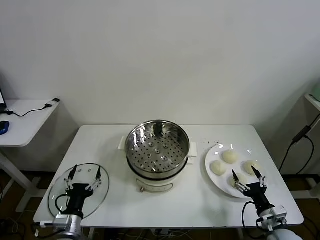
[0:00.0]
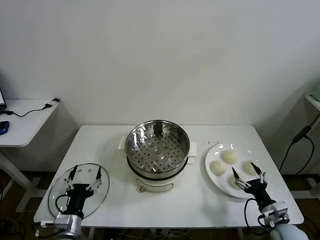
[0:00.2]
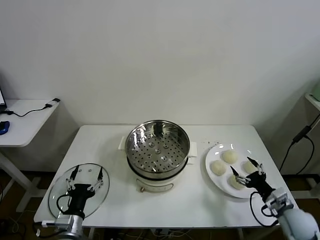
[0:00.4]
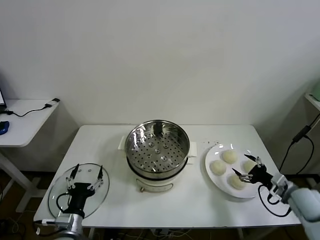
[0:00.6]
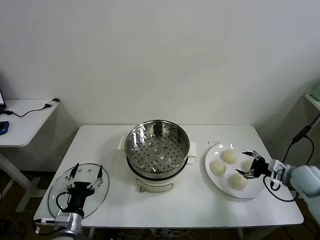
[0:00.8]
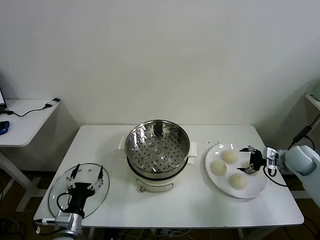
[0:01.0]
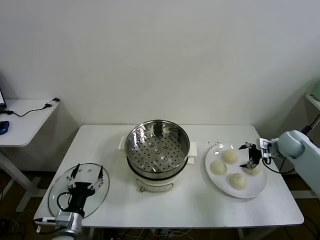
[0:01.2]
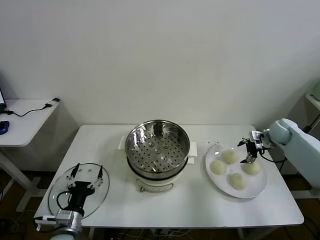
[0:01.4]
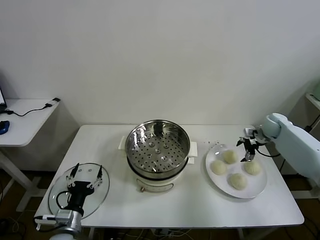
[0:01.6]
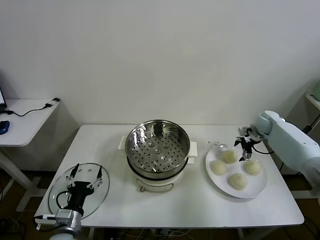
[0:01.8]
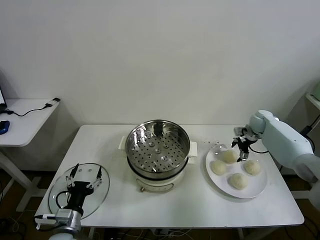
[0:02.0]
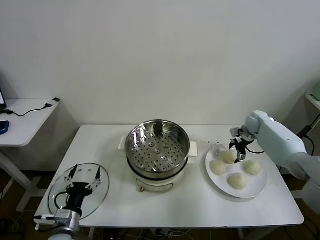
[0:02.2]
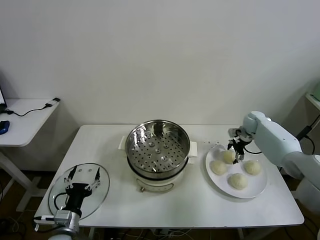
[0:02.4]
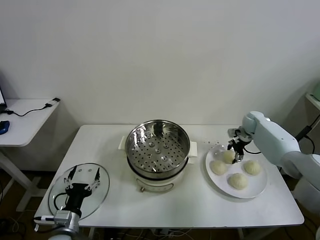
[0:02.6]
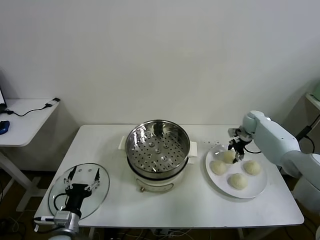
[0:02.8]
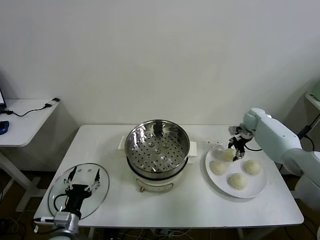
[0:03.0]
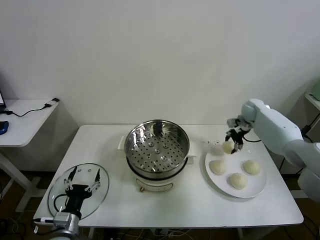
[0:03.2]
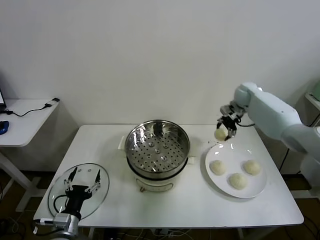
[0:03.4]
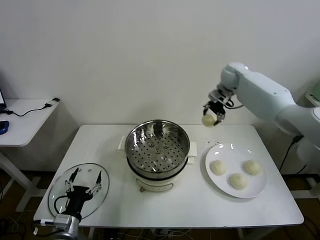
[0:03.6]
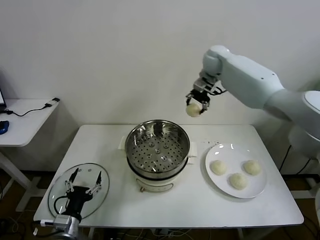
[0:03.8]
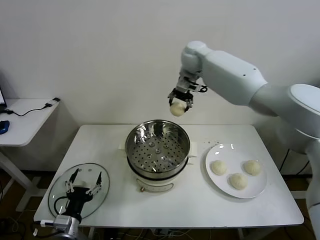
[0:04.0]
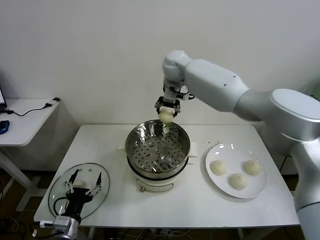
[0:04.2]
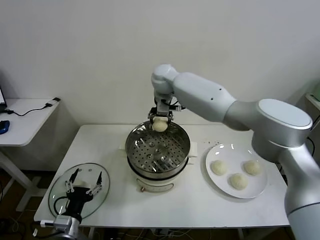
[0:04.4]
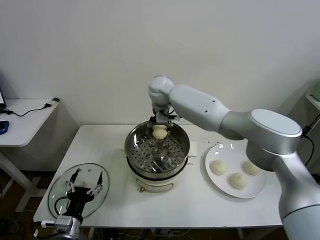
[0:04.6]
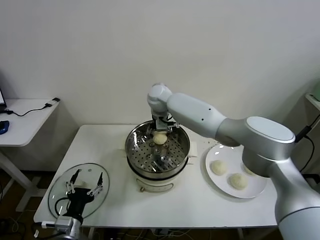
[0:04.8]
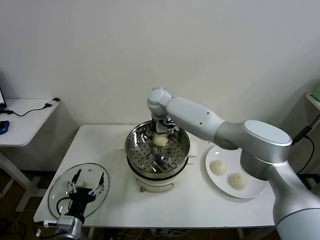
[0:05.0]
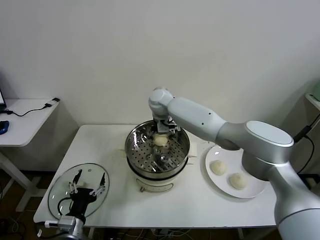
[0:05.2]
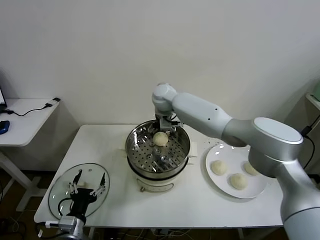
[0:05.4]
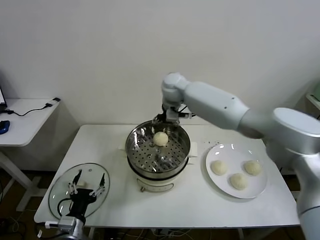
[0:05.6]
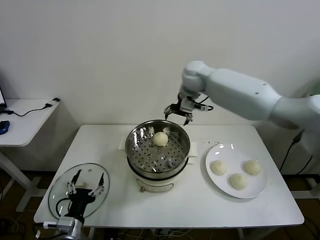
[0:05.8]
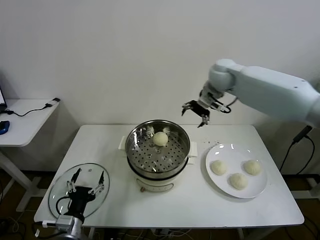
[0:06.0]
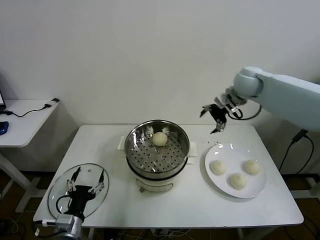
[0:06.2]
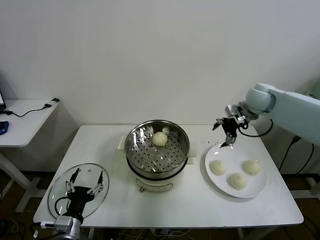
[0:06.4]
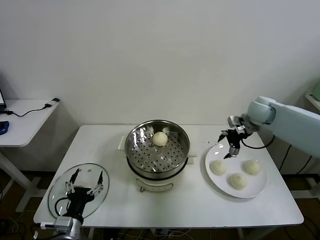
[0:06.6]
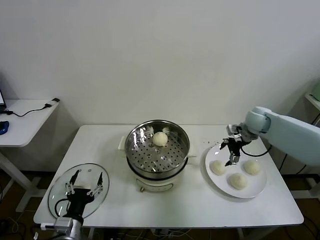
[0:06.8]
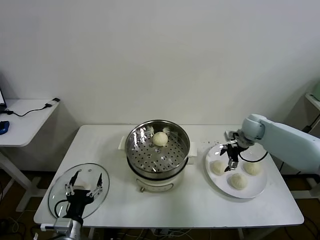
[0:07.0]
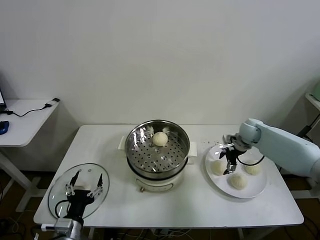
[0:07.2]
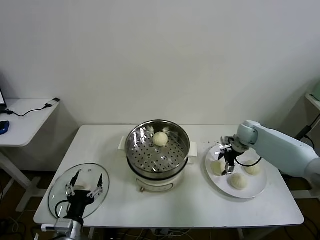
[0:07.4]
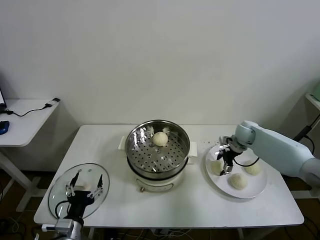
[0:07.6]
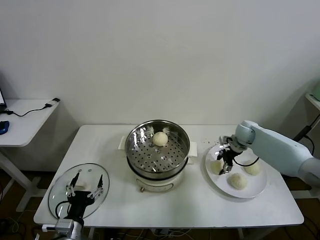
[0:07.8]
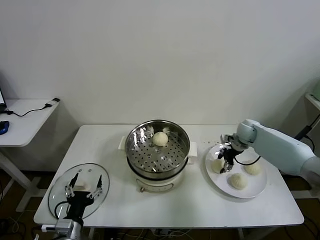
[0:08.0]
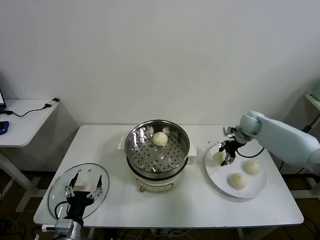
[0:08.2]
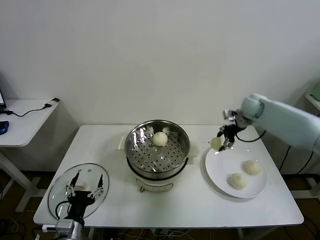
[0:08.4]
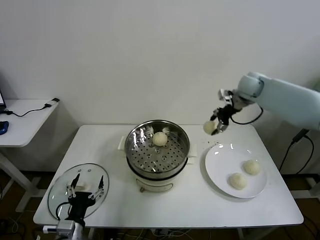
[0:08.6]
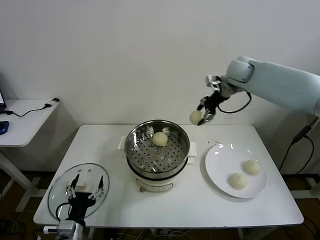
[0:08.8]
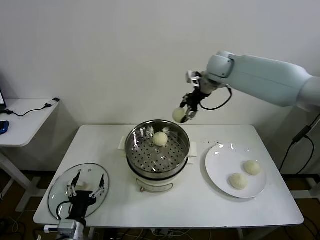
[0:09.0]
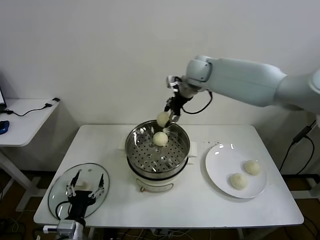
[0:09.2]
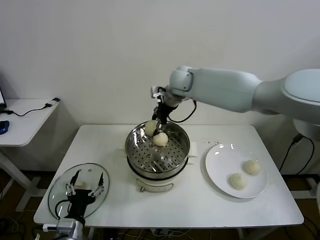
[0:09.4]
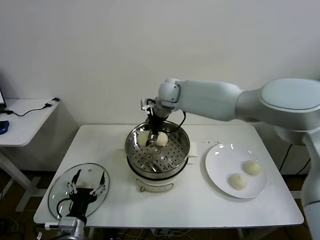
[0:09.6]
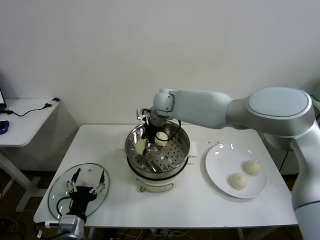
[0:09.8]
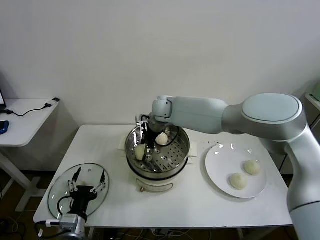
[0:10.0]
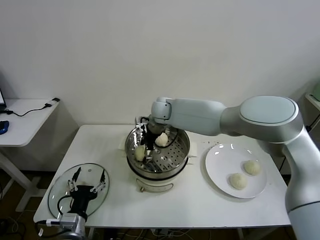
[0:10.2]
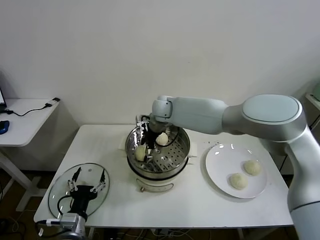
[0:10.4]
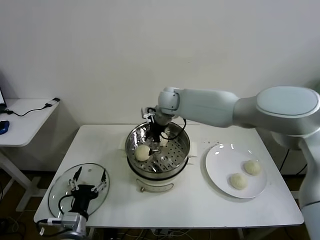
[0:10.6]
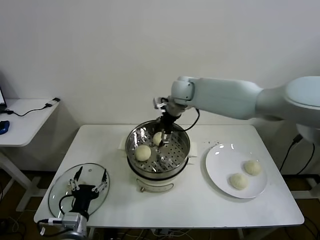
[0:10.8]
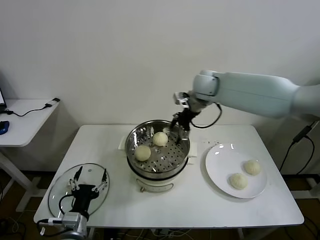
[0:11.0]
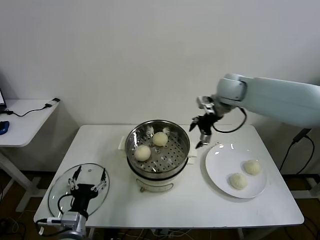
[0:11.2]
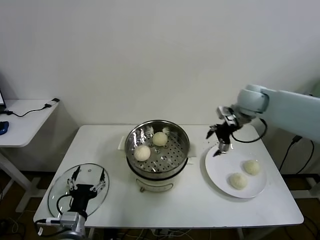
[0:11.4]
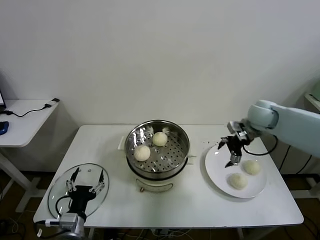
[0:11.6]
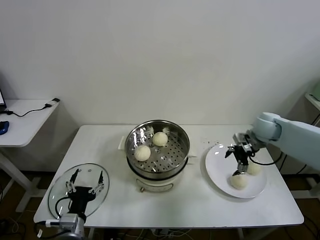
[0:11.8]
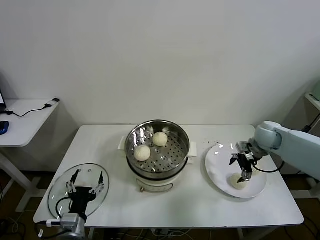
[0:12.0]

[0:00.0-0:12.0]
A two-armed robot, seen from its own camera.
Task of the whole recording: take steamed baozi put them in steamer then cover it.
Step, 0:00.0 to 0:02.8: Grasp the baozi in the plate with right gripper.
Step, 0:03.0 to 0:05.4: Place the baozi on the steamer with right gripper.
Step, 0:05.6 to 0:08.0: Grasp the baozi in the plate with right gripper.
Step, 0:08.2 to 0:10.4: Place the baozi on the steamer with right gripper.
0:01.6 to 0:03.0: The right gripper changes place by approximately 5 cm, and closes.
0:03.0 to 0:04.4: The right gripper goes approximately 40 cm to the left and upward.
0:04.4 to 0:06.0: The right gripper shifts roughly 25 cm to the right, and opens up.
0:06.0 to 0:07.6: The right gripper is displaced downward and to the right by about 25 cm, and closes its fingers.
0:07.6 to 0:09.0: The right gripper is displaced upward and to the left by roughly 35 cm, and closes.
0:09.0 to 0:10.4: The right gripper shifts roughly 20 cm to the left and downward, and opens its fingers.
0:10.4 to 0:12.0: The right gripper is displaced to the right by some 35 cm.

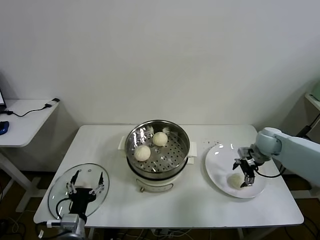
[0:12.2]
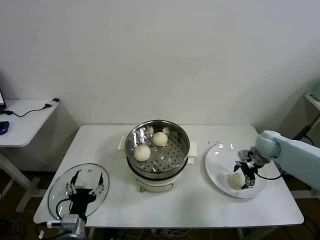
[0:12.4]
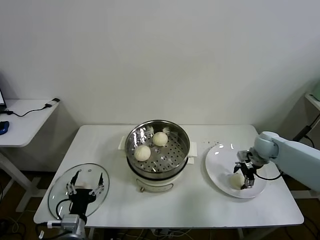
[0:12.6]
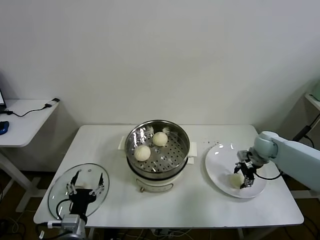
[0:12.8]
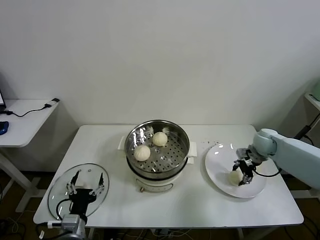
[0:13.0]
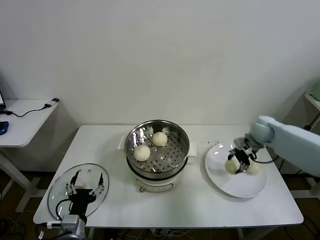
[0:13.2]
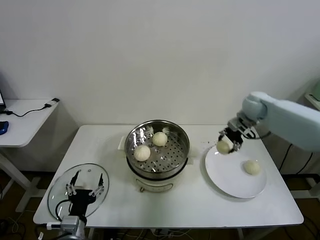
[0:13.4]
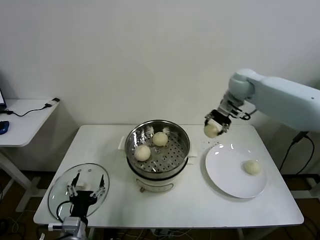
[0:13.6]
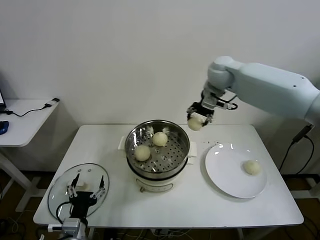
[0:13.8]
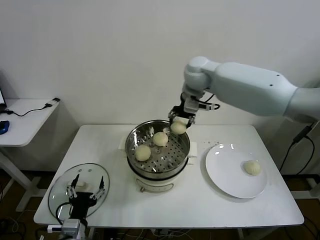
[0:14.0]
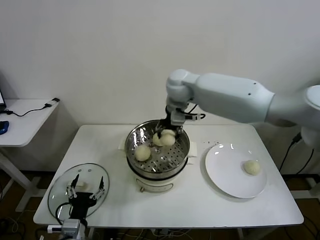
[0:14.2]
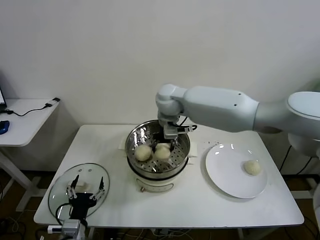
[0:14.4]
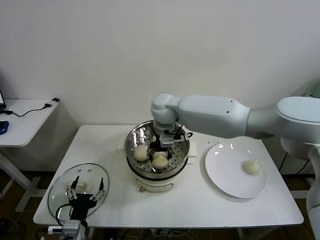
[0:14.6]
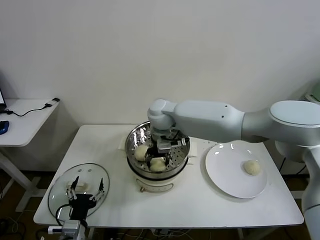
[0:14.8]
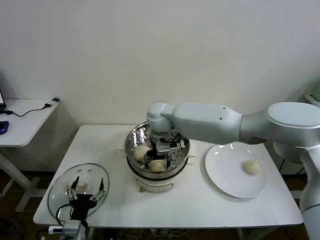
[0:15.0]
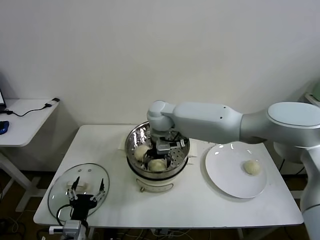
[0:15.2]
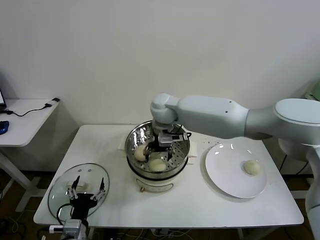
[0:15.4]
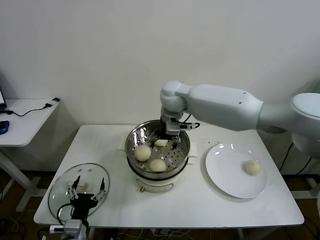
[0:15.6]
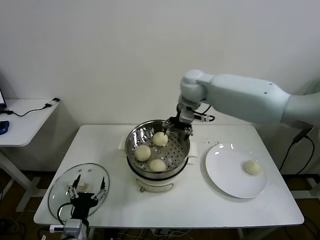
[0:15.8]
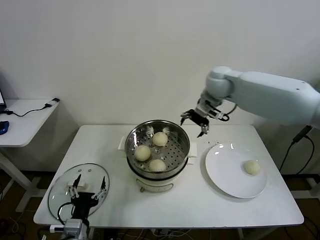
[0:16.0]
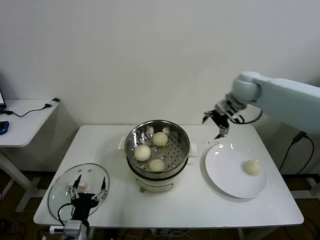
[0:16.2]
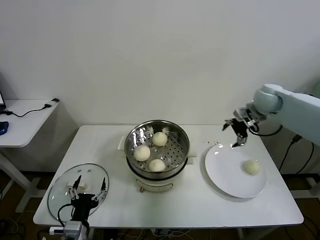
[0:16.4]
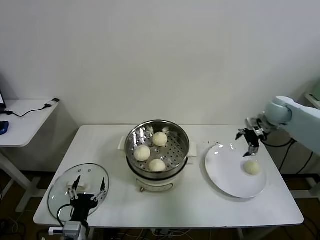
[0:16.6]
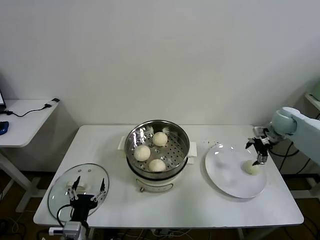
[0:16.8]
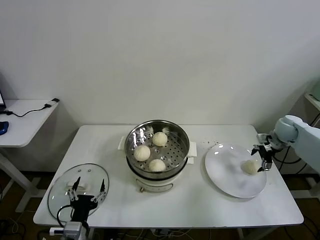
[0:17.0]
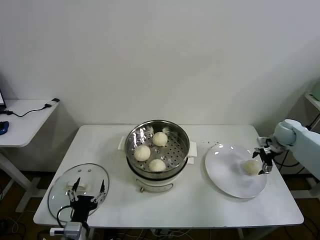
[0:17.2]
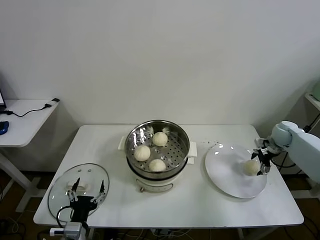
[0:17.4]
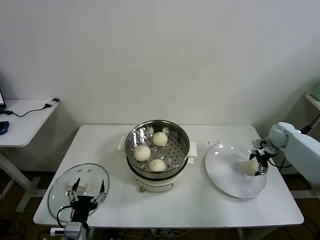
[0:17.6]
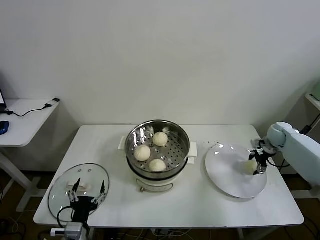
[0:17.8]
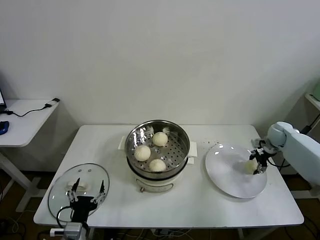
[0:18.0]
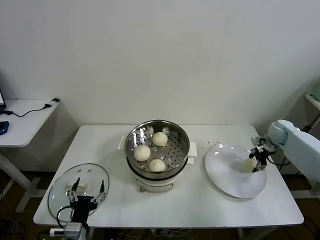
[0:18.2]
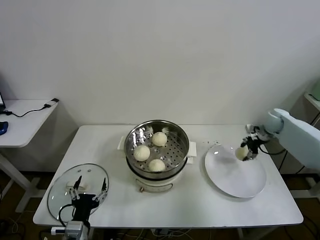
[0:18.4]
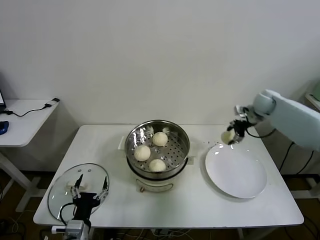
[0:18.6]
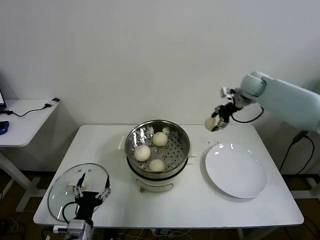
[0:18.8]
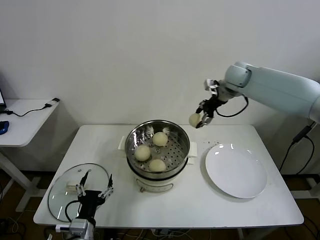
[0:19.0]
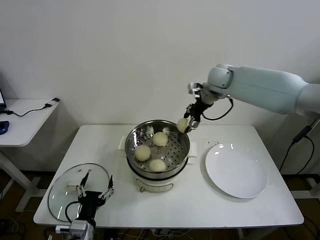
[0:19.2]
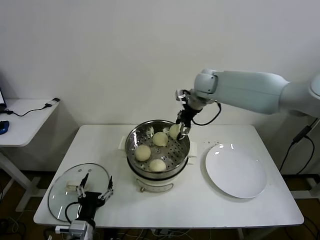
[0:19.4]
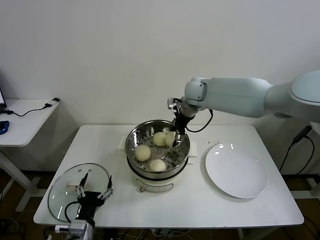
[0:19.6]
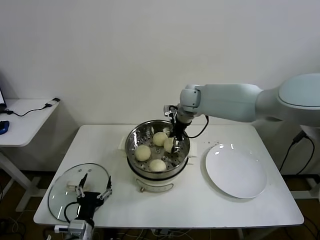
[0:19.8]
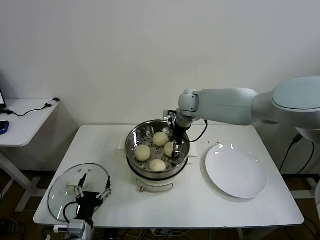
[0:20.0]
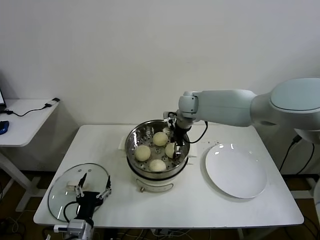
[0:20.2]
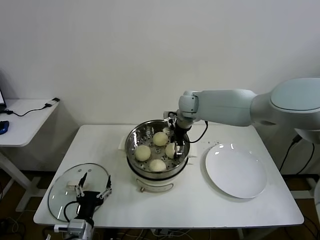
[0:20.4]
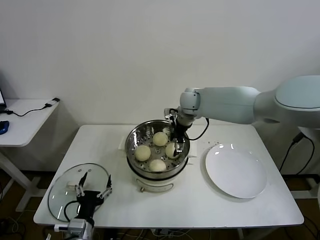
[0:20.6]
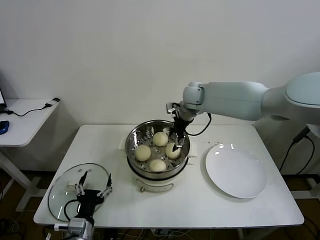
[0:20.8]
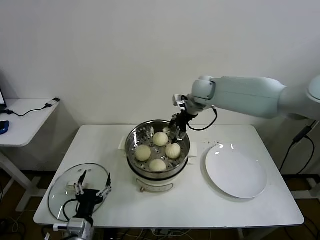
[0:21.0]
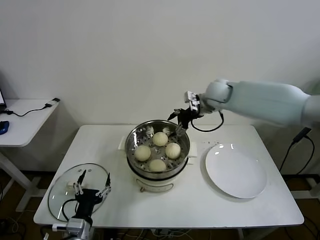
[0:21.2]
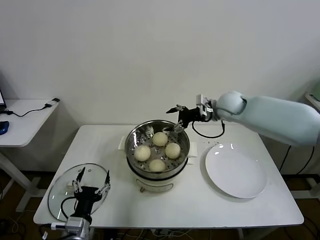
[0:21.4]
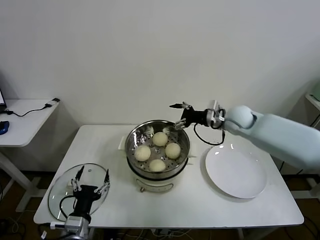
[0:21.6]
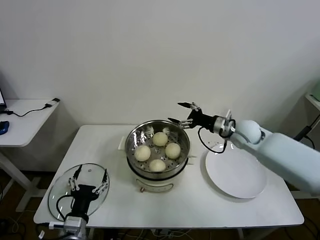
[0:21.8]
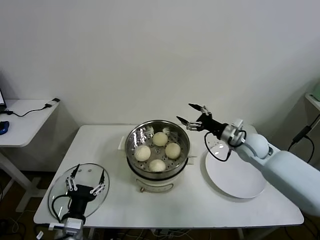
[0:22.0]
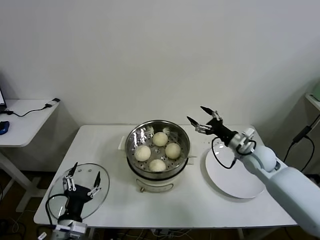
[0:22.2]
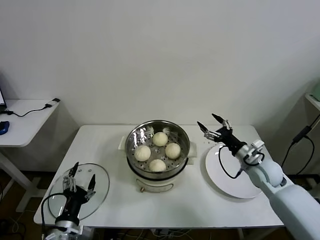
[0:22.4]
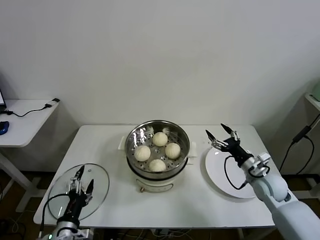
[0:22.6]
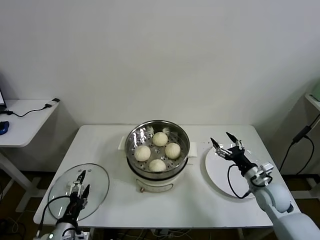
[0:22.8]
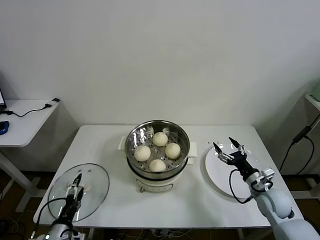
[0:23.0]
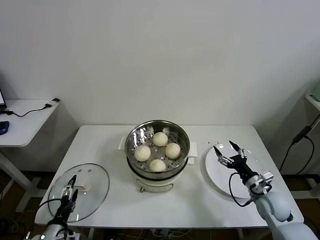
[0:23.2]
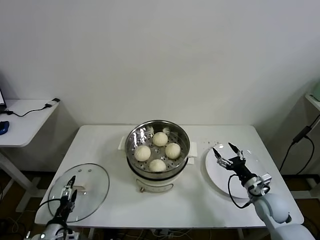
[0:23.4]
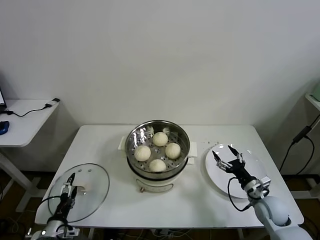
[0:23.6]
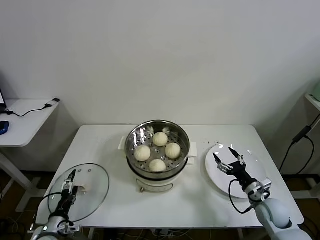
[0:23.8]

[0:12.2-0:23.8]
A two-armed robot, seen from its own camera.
Task of the whole recording: take steamed baozi put them in steamer then cover it.
Step, 0:13.0 to 0:15.6: Place the baozi on the steamer with right gripper.
Step, 0:15.8 to 0:18.0: Grasp the baozi in the plate with right gripper.
Step, 0:18.2 to 0:20.8: Place the baozi on the steamer with right gripper.
0:12.2 to 0:13.6: The right gripper shifts approximately 30 cm upward, to the left and forward, and closes up.
0:13.6 to 0:15.0: The right gripper heads to the left and downward, covering roughly 25 cm, and opens its fingers.
0:15.0 to 0:16.6: The right gripper is displaced to the right by roughly 40 cm.
0:16.6 to 0:18.0: The right gripper heads downward and to the right, covering roughly 15 cm, and closes its fingers.
0:18.0 to 0:19.4: The right gripper heads to the left and upward, covering roughly 40 cm.
0:19.4 to 0:21.0: The right gripper opens.
0:21.0 to 0:22.4: The right gripper travels downward, backward and to the right by approximately 35 cm.
0:22.4 to 0:23.8: The left gripper travels downward and to the left by approximately 15 cm; the right gripper travels downward and backward by about 15 cm.
